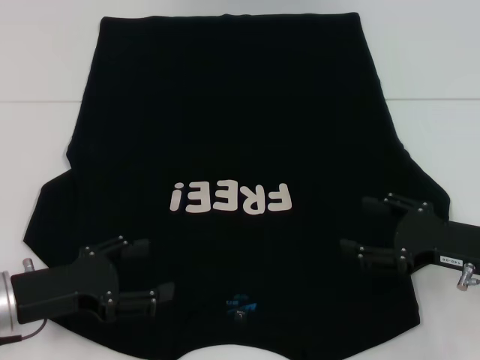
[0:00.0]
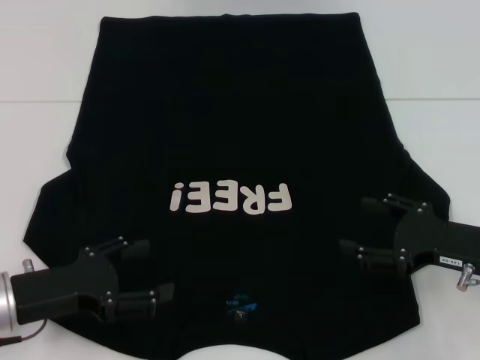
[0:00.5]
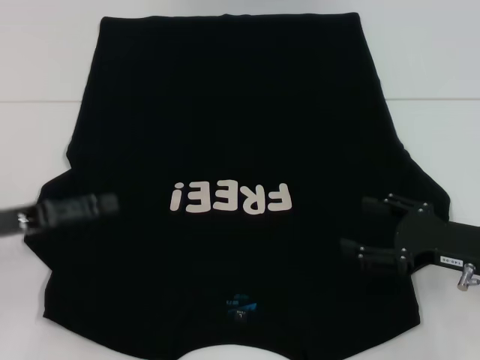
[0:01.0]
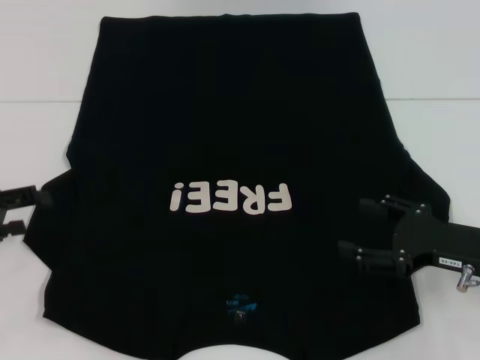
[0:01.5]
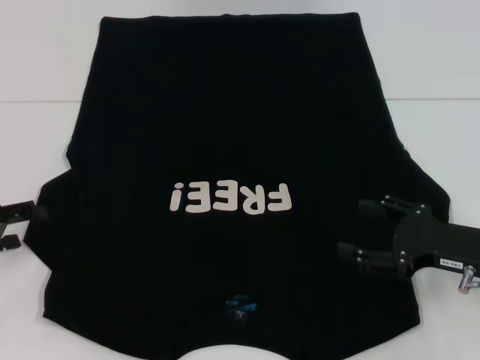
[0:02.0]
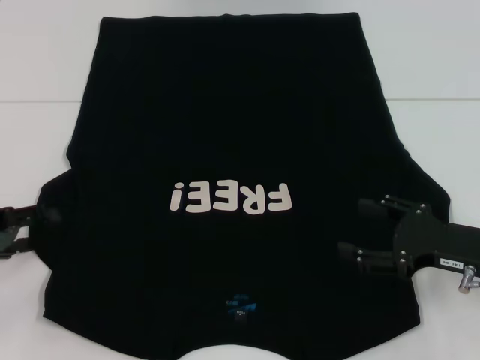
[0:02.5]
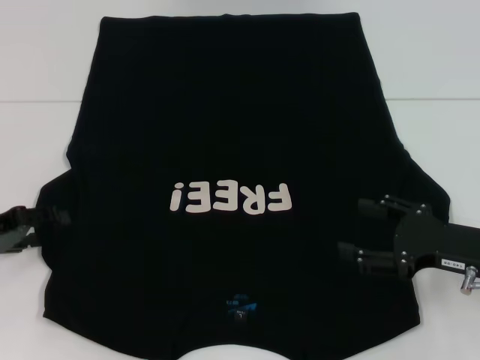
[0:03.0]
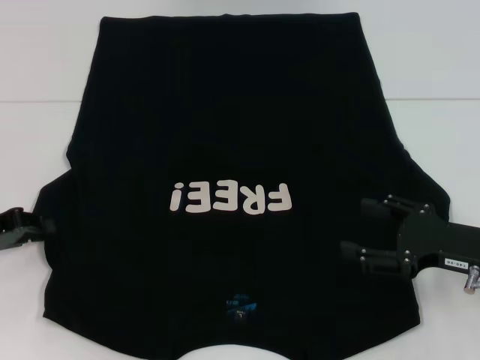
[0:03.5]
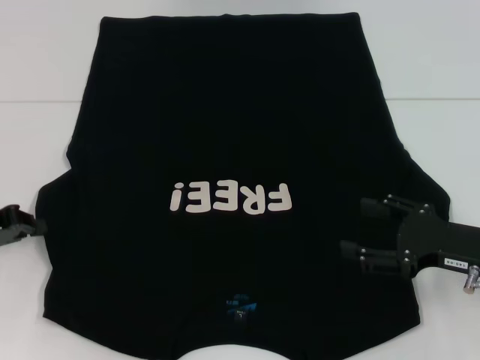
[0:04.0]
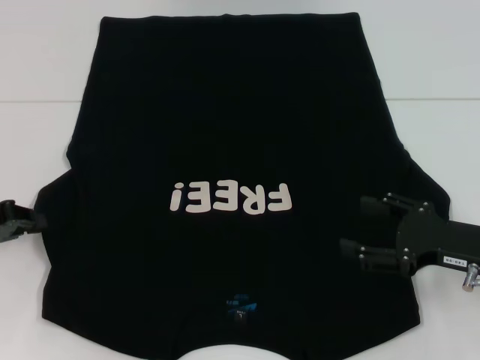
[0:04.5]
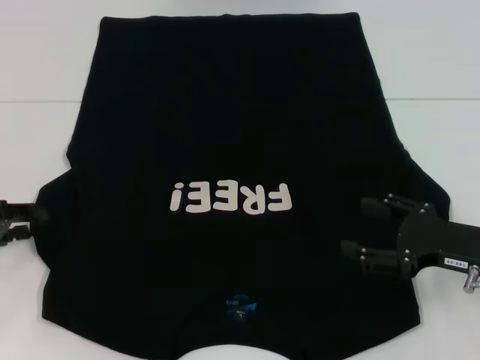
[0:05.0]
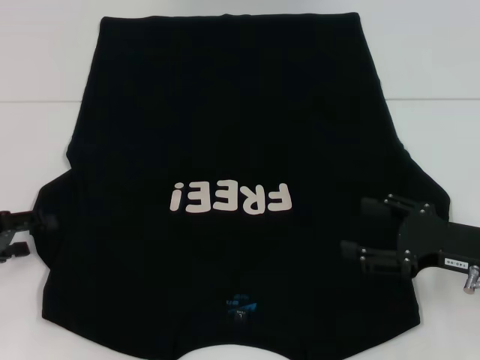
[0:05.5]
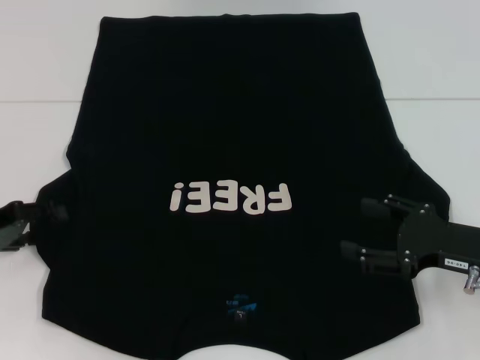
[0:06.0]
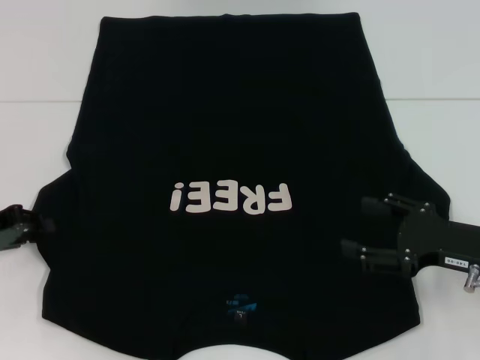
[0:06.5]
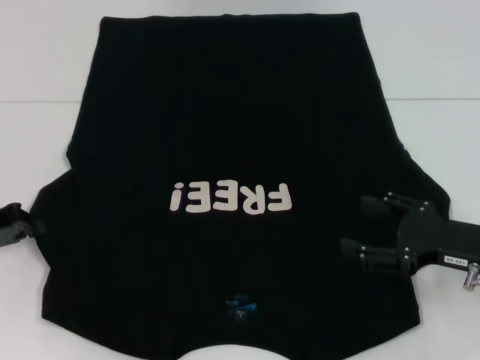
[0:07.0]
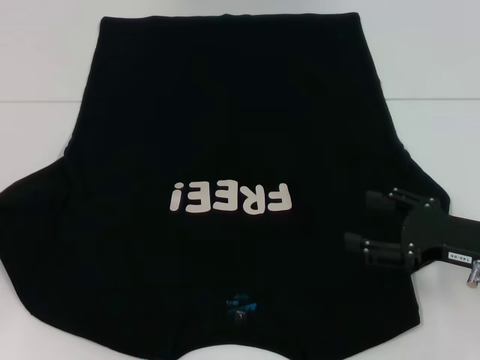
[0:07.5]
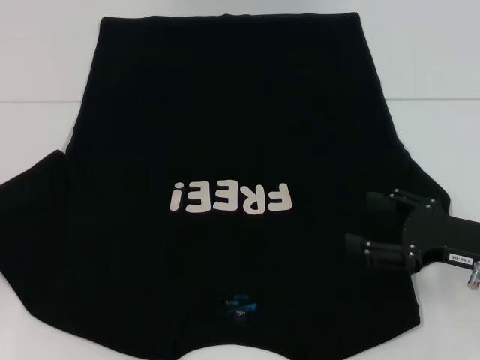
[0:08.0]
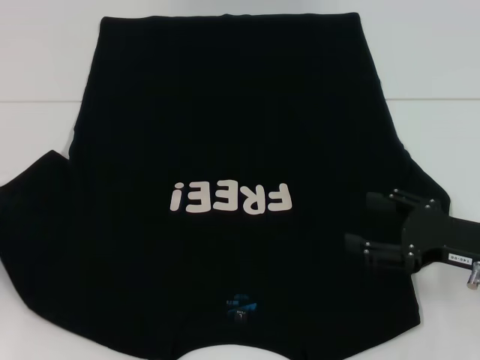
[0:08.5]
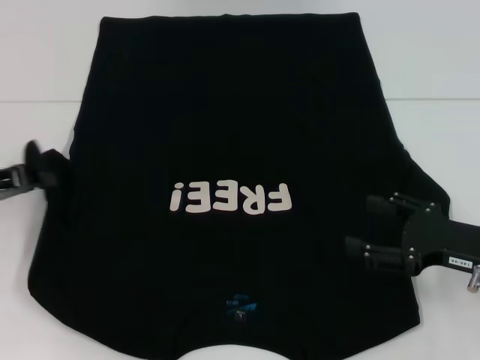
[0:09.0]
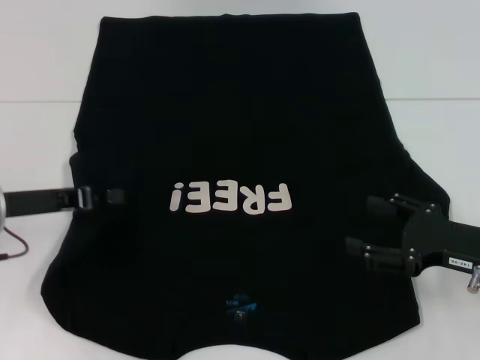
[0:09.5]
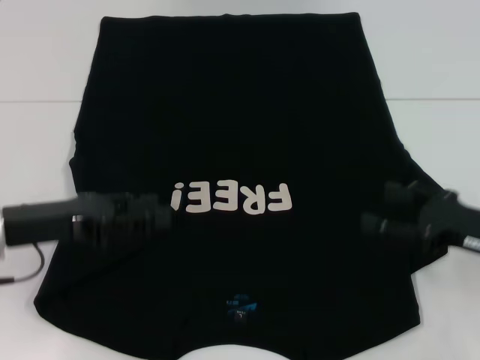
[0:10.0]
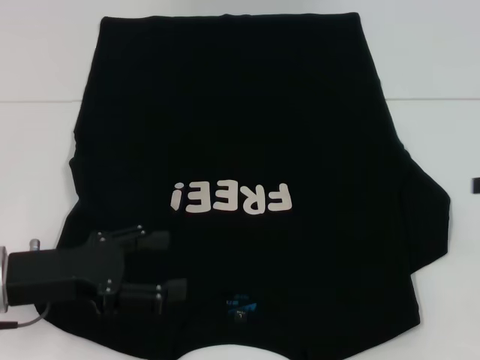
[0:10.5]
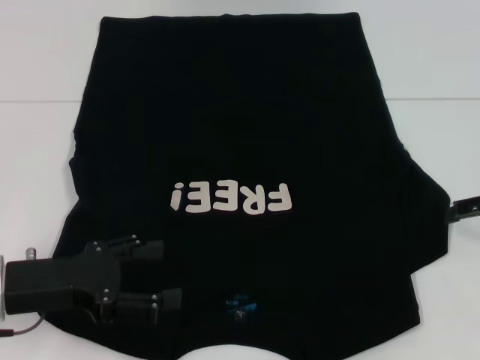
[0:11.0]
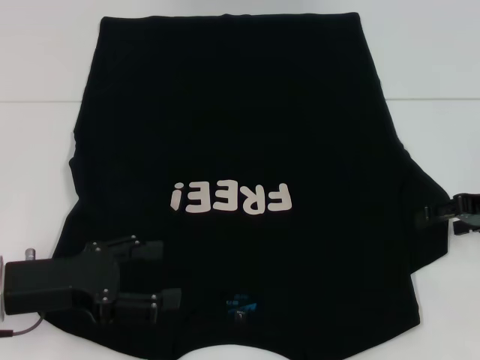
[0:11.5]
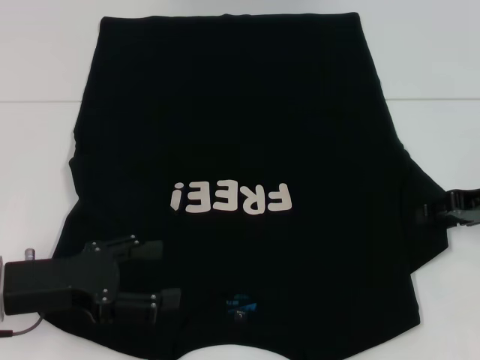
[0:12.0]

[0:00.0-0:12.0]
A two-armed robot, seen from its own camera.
Step, 0:00.0 to 0:09.5: Fold the bottom left sleeve with your left hand.
0:00.0 to 0:02.0: The left gripper goes some 10 cm to the left and forward.
0:02.0 to 0:04.0: The left gripper closes up.
0:04.0 to 0:06.0: The left gripper opens.
0:06.0 to 0:08.0: The left gripper changes place by some 5 cm, and closes.
0:08.0 to 0:10.0: The left gripper moves to the right, some 15 cm.
0:10.0 to 0:12.0: The left gripper opens up. Meanwhile the right gripper heads forward, covering roughly 10 cm, and travels to the right and back again, roughly 10 cm each way.

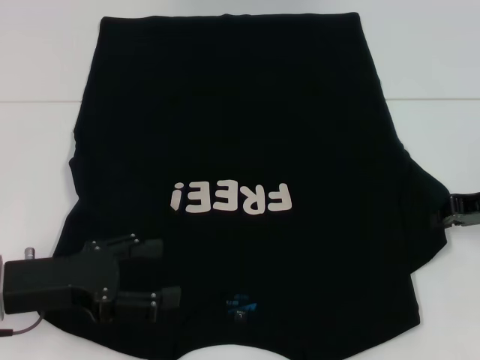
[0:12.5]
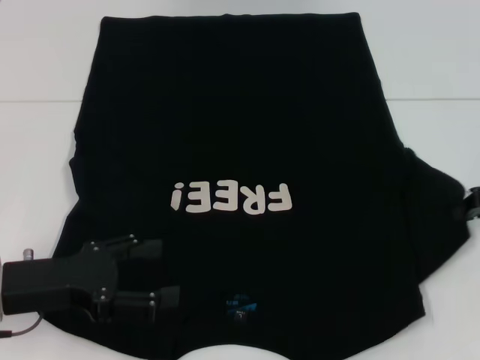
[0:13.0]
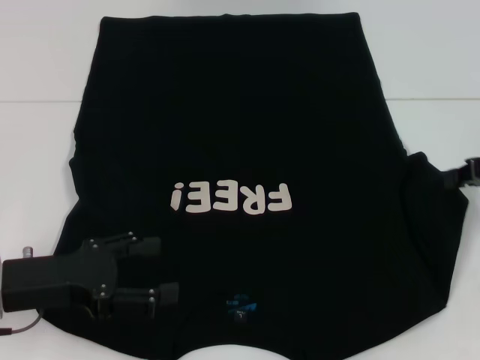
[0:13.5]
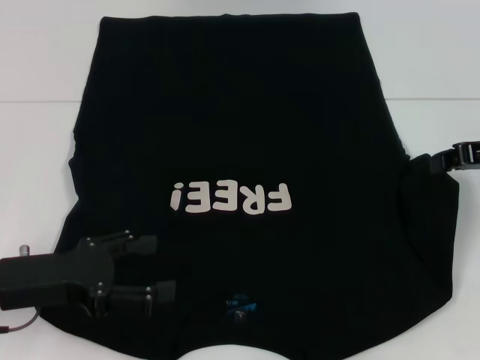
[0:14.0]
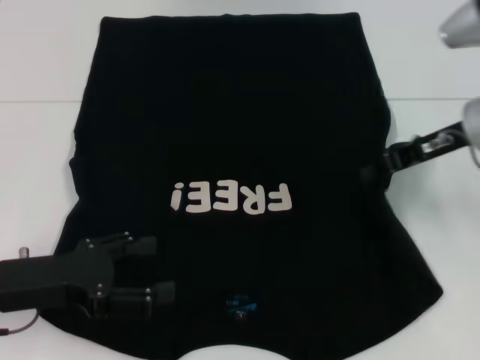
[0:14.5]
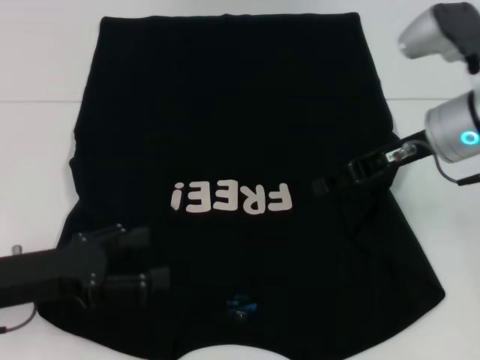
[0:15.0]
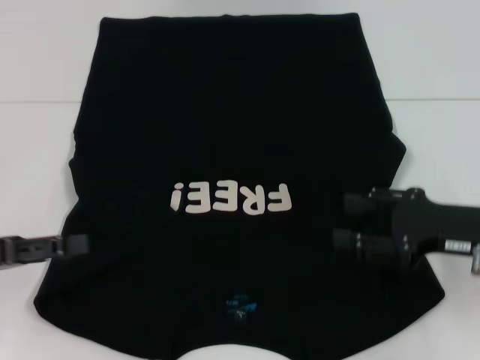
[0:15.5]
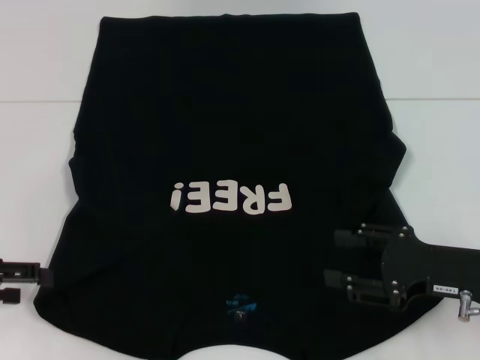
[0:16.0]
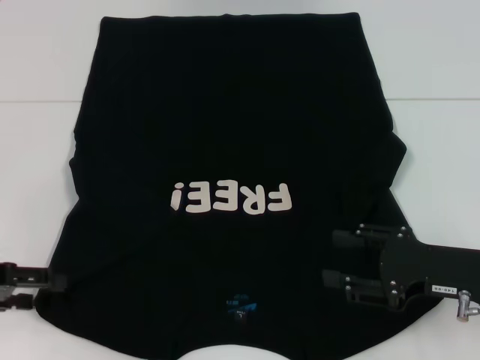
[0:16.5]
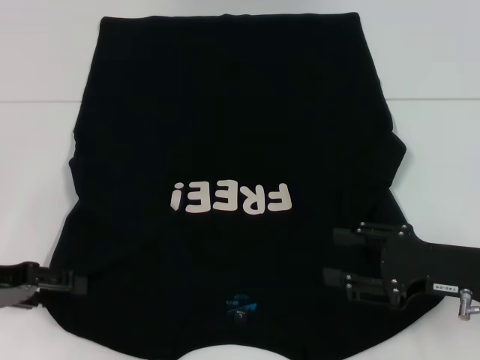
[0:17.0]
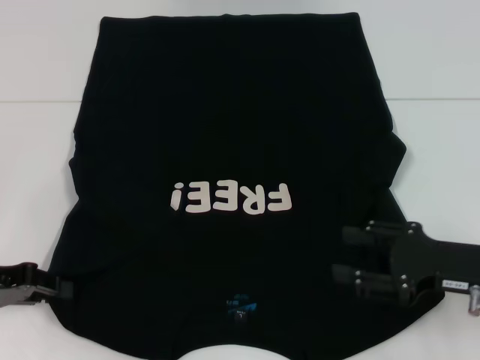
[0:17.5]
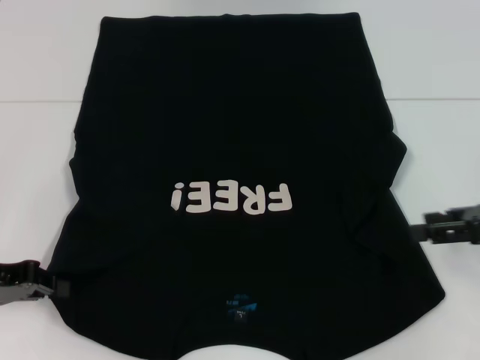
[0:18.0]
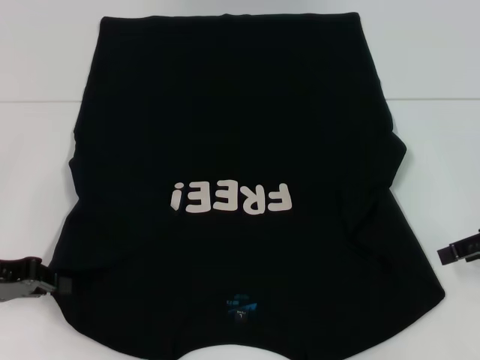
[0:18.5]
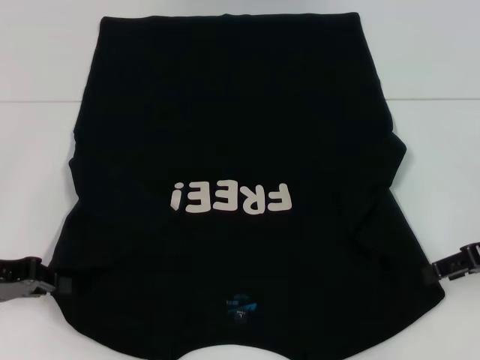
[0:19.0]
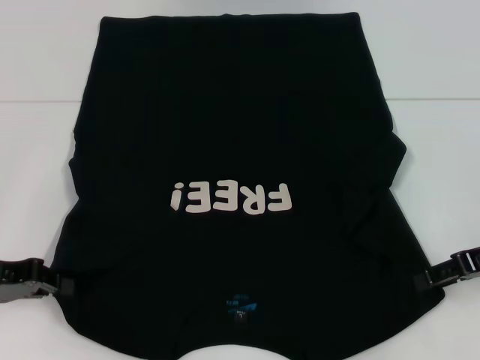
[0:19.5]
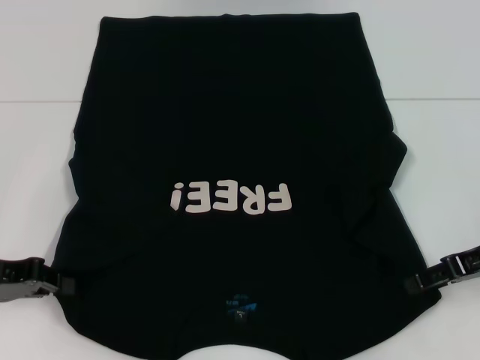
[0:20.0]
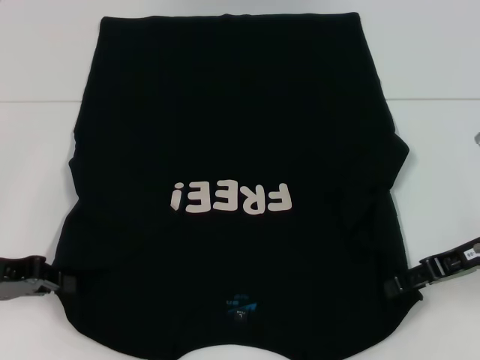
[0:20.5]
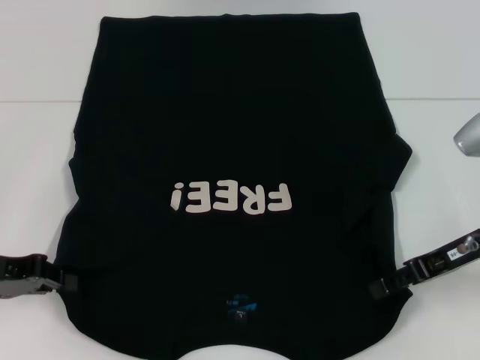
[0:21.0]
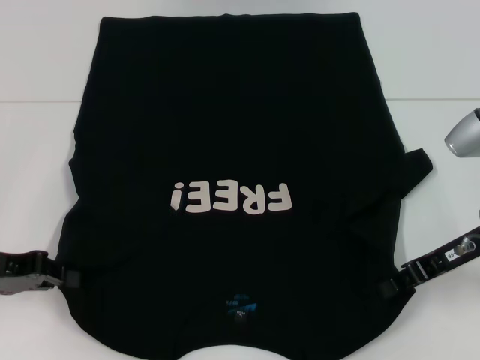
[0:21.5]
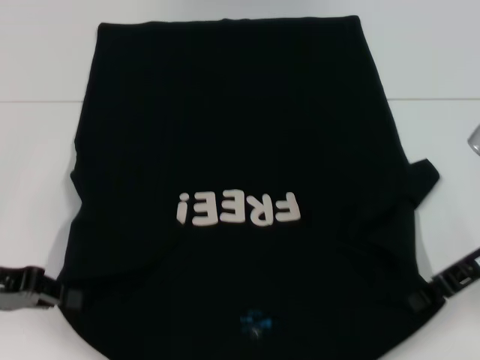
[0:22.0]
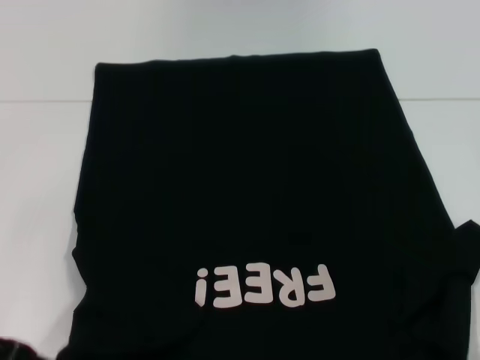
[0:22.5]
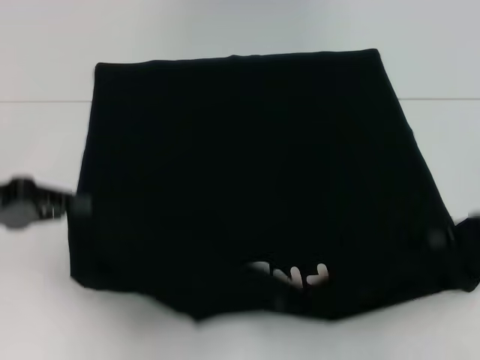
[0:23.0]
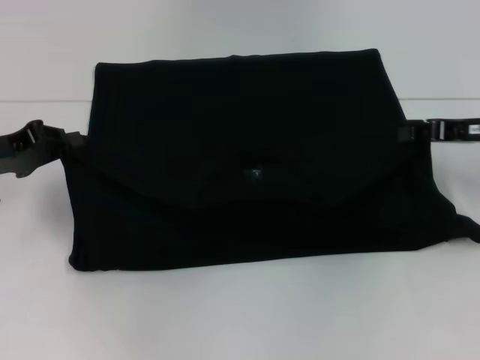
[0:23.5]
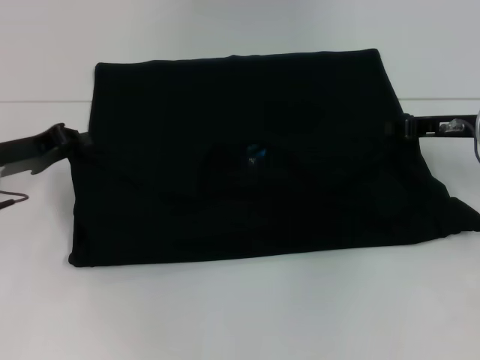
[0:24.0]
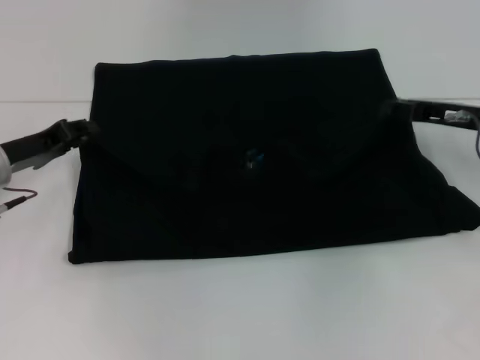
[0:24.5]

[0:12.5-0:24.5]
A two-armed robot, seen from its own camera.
Step, 0:12.5 to 0:15.0: Fold the bottom right sleeve with your right hand.
Step, 0:15.5 to 0:18.0: Grab the bottom left corner with your left hand.
Step, 0:18.5 to 0:21.5: Grab the bottom right corner with your right hand.
0:12.5 to 0:14.5: The right gripper moves to the left and upward, about 10 cm.
0:14.5 to 0:16.5: The left gripper is displaced to the left by about 10 cm; the right gripper shifts approximately 15 cm backward and downward, and opens up.
0:16.5 to 0:18.5: The left gripper closes up. The right gripper goes about 10 cm to the right, forward and upward.
0:18.5 to 0:20.5: The right gripper shifts about 5 cm to the left.
0:20.5 to 0:22.5: The right gripper closes; the left gripper changes place by roughly 5 cm.
0:22.5 to 0:24.5: Both grippers travel together forward, some 10 cm.

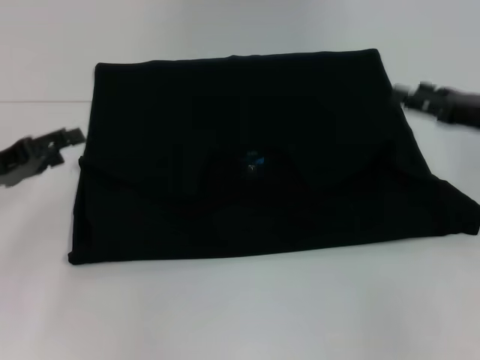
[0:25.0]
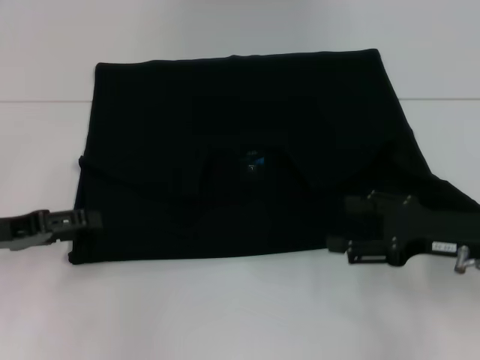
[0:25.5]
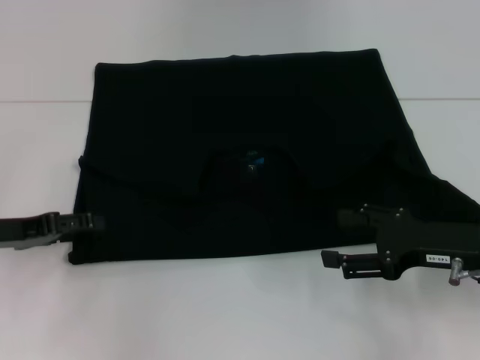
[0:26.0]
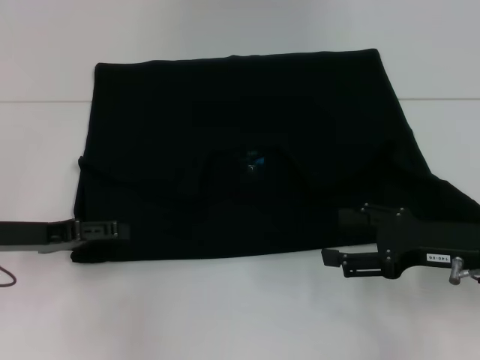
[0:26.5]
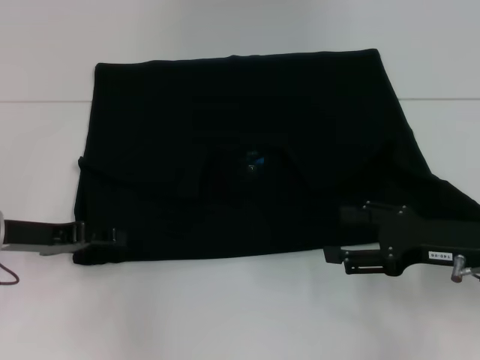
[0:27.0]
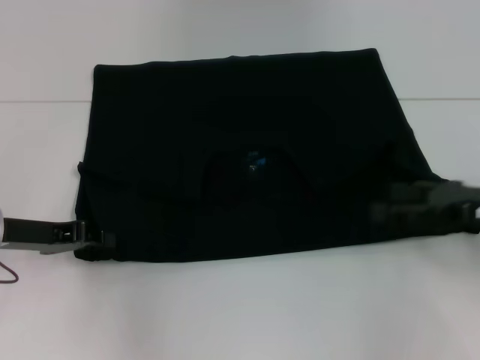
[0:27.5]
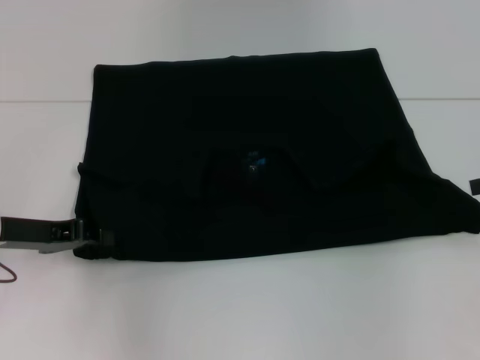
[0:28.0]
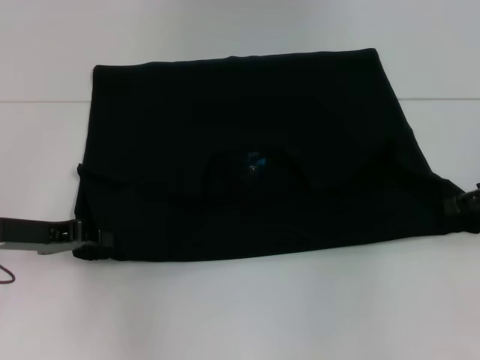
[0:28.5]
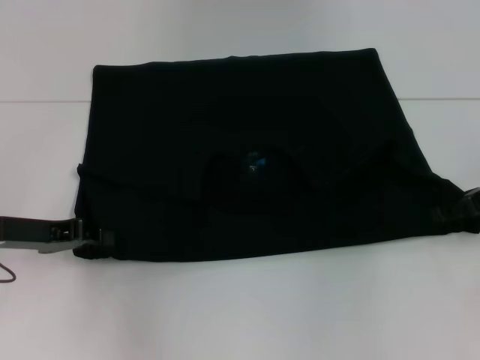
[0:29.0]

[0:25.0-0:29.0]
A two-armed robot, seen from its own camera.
0:25.0 to 0:27.0: The right gripper heads backward and downward, covering some 10 cm.
0:27.0 to 0:29.0: The right gripper heads forward and to the right, covering some 10 cm. The left gripper closes.
